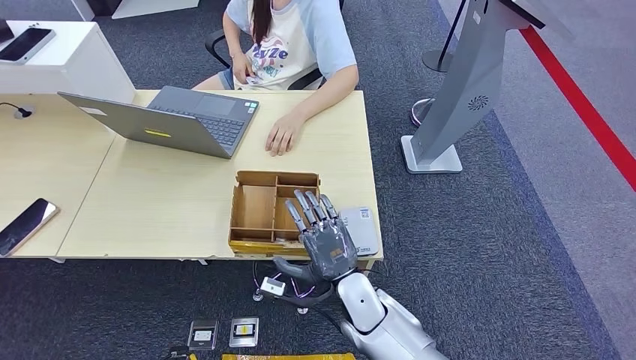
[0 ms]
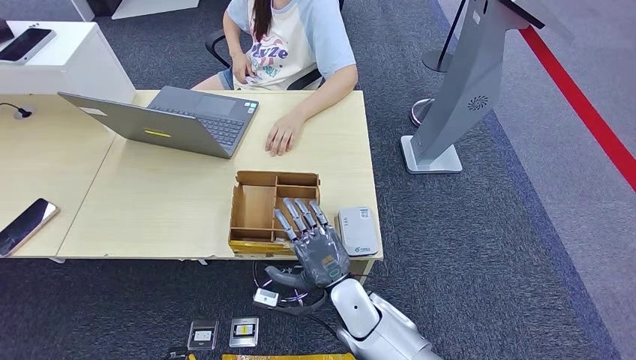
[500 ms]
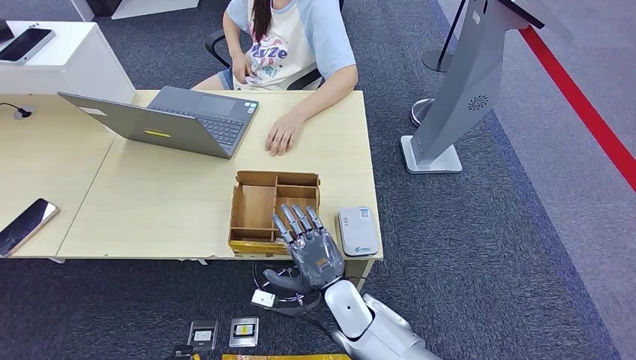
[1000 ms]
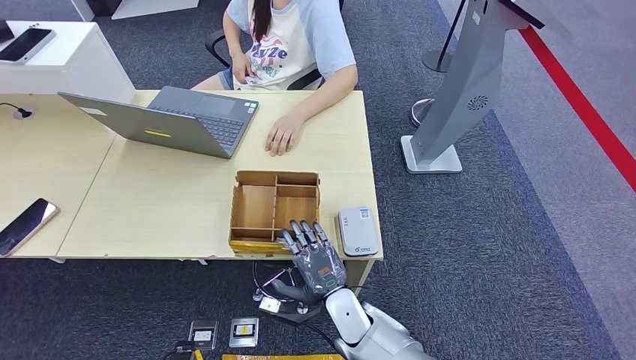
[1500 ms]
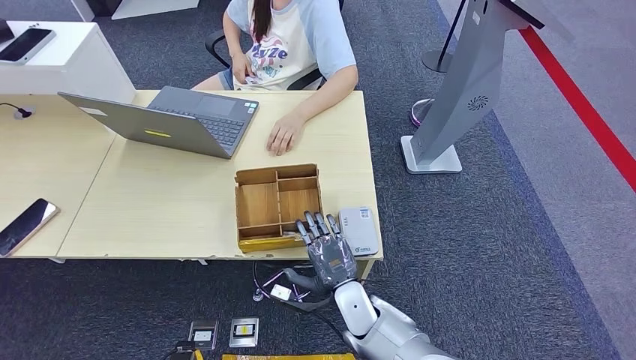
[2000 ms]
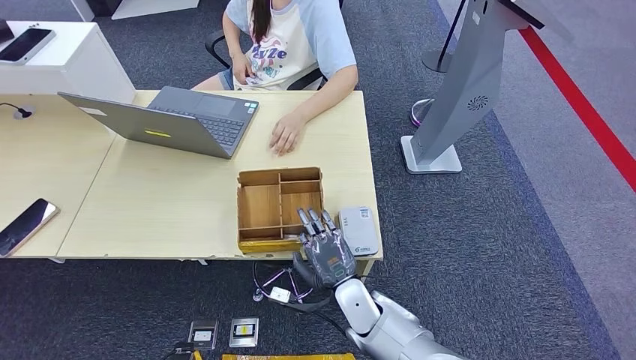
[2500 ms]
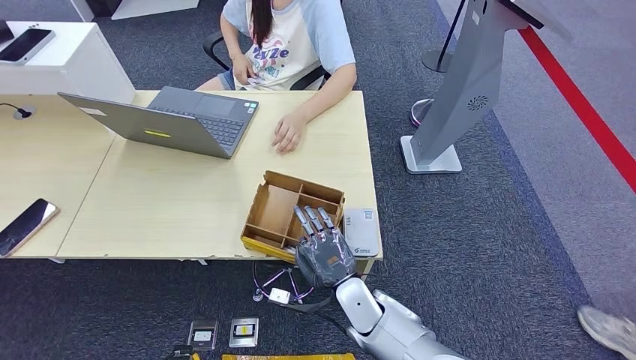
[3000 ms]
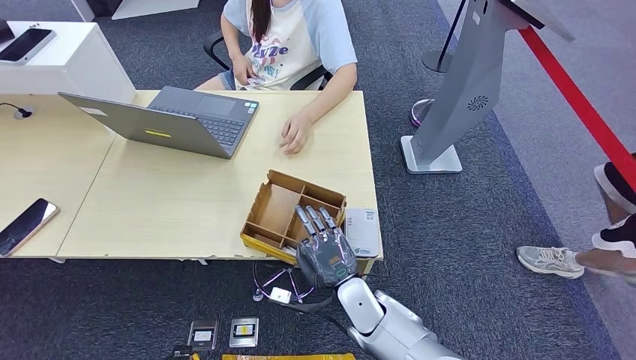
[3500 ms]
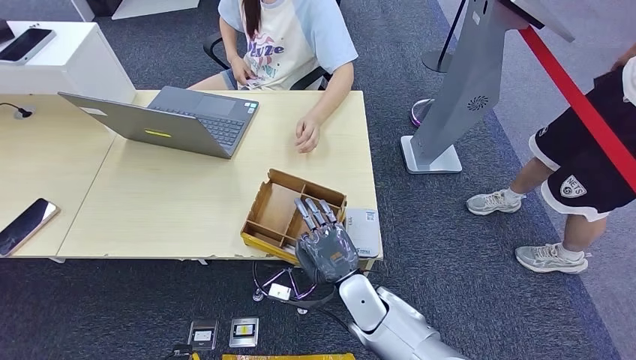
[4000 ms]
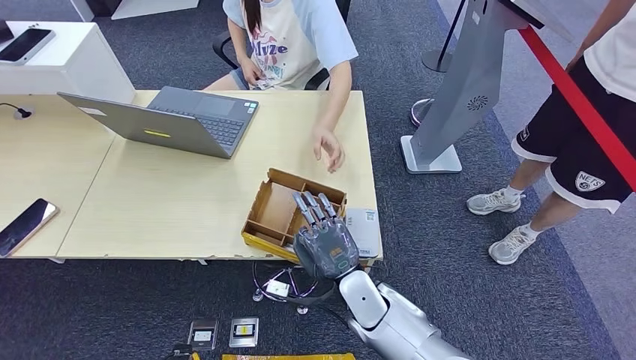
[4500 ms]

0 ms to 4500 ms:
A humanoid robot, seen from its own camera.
Step, 0 ms to 3500 ms: Pick up the room key from the key card box.
Step, 4000 ms to 4500 ms: Hand the room key to the person.
0 ms to 2000 ms: The right hand is displaced downward by about 5 cm.
2000 ms to 4500 ms: The hands stay close to where they were, moving slightly.

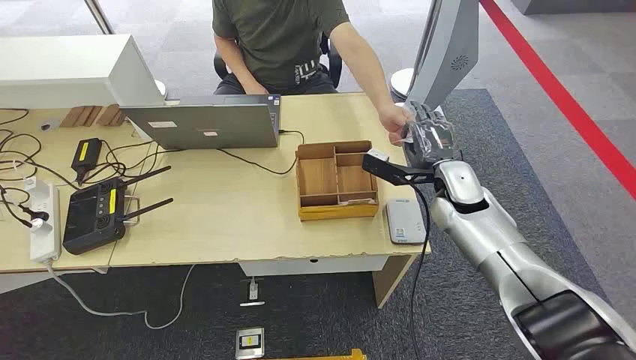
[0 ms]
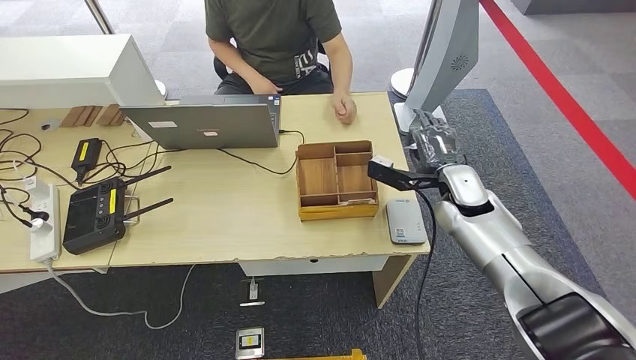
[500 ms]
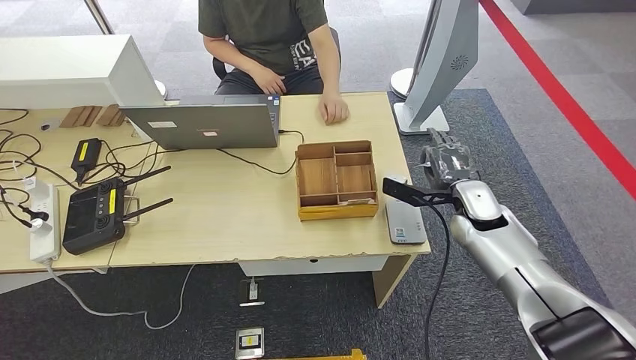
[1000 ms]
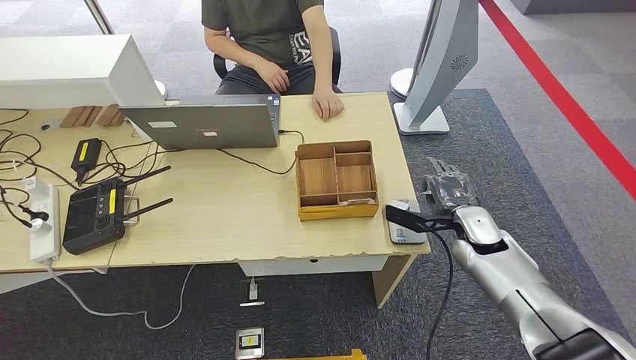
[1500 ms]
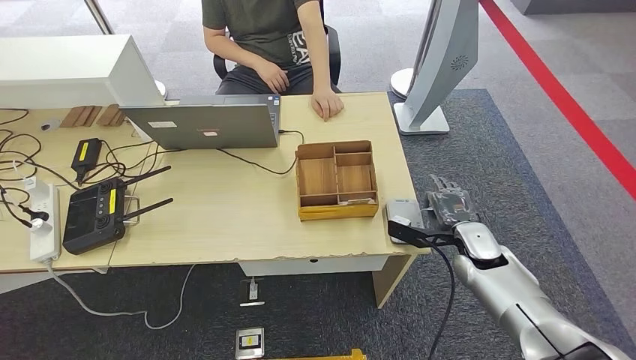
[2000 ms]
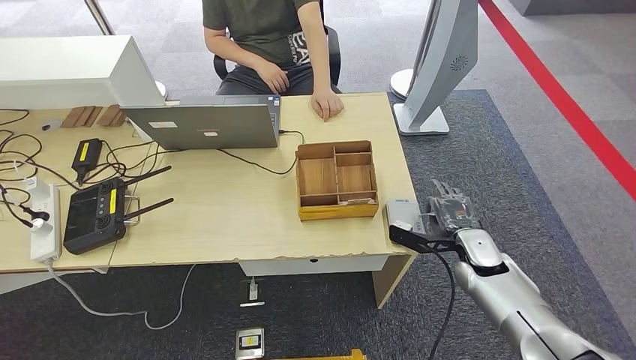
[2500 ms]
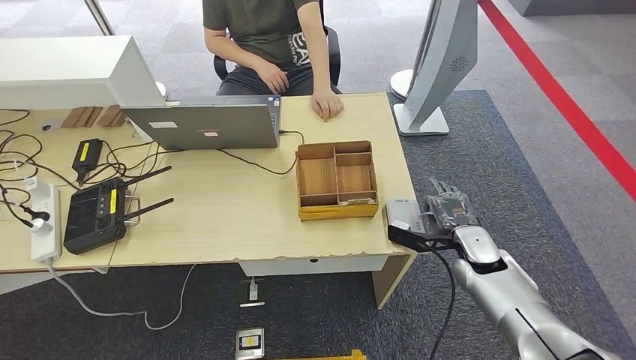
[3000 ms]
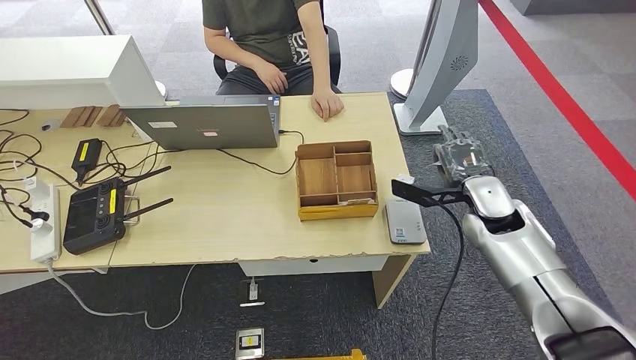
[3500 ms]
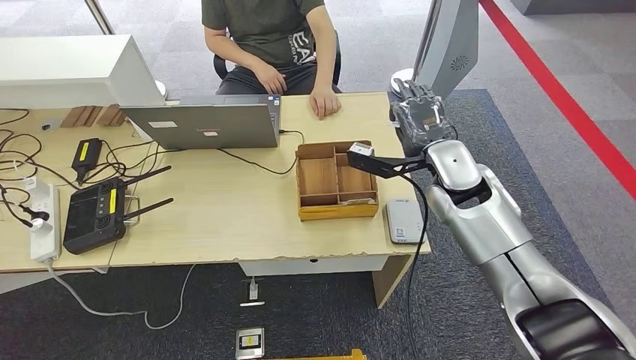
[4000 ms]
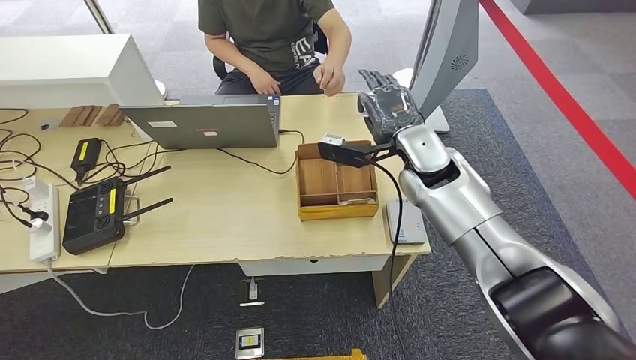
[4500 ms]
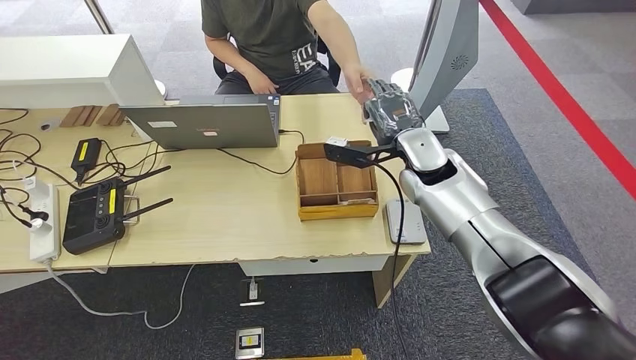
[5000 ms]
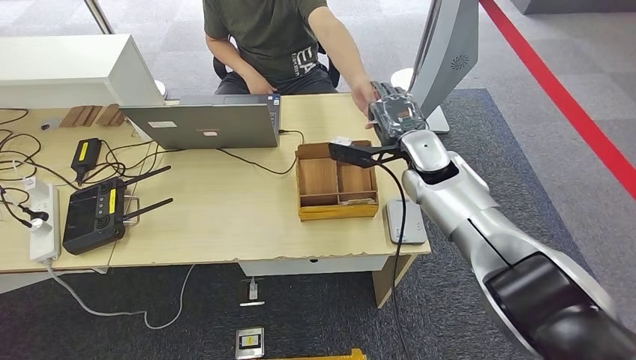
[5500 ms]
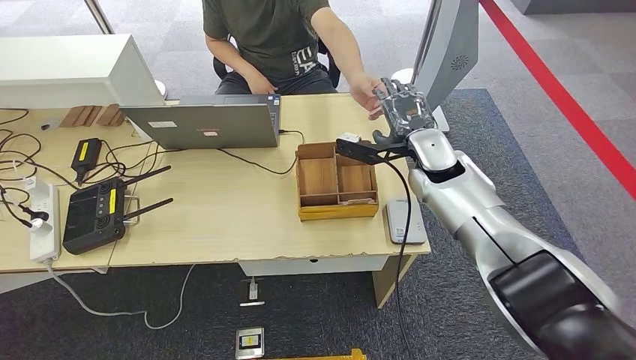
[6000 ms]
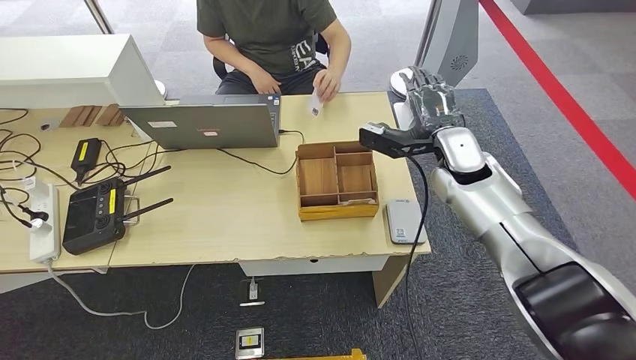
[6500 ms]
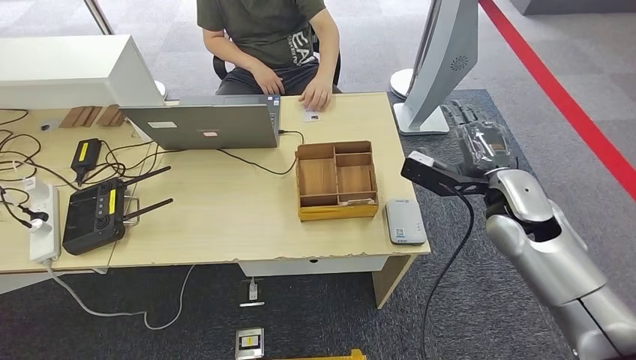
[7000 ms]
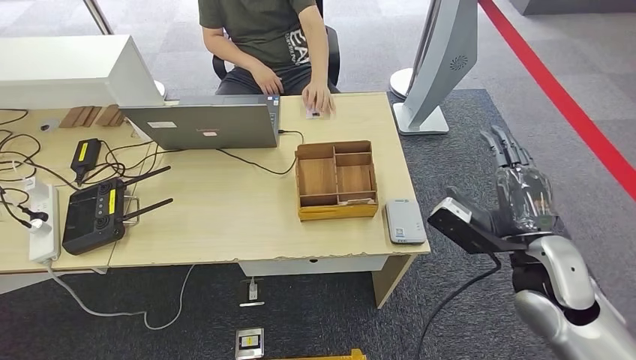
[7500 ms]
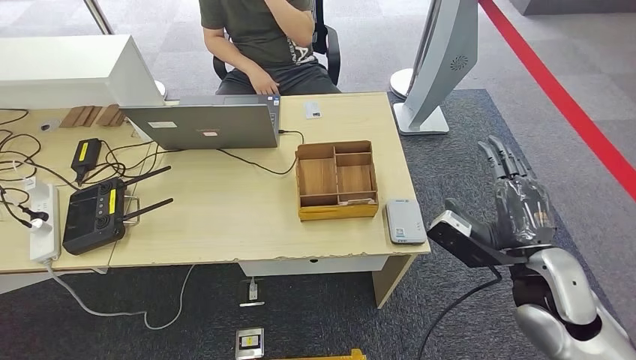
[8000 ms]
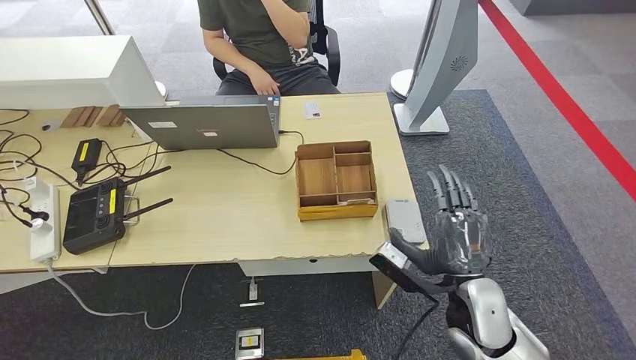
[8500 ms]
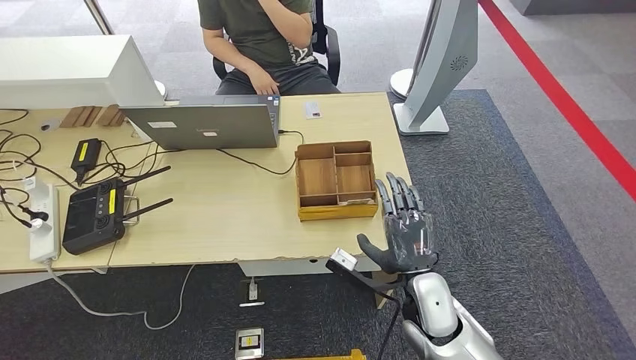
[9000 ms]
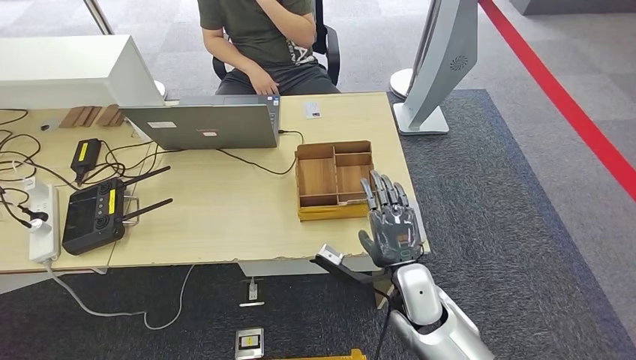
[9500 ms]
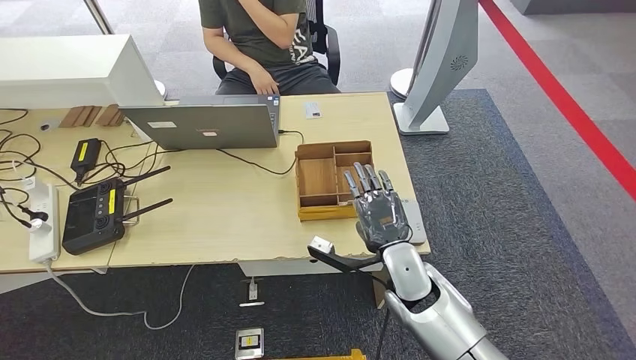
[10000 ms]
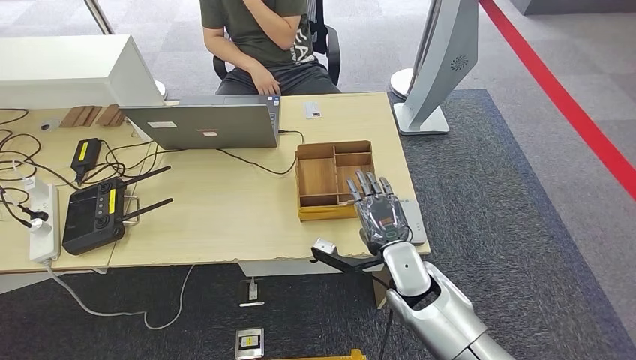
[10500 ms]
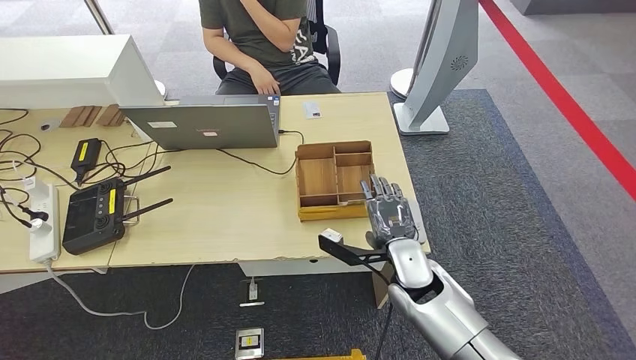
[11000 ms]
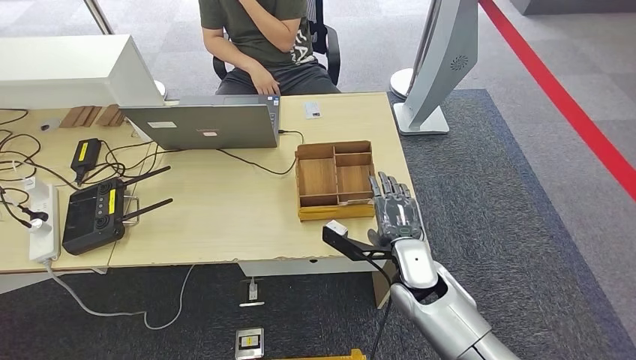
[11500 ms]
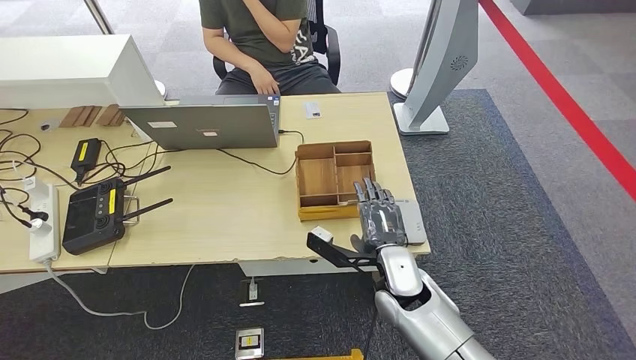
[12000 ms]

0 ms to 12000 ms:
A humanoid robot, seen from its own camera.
Step, 0 ms to 1000 ms: Take the ID card from the person's hand.
Step, 1500 ms to 4500 ms: Place the ID card on the card reader.
Step, 5000 ms to 10500 ms: Hand the ID card to the person.
2000 ms to 4000 ms: The right hand is displaced upward and to the left by about 20 cm.
4000 ms to 6000 ms: The right hand ends up roughly 5 cm from where it was.
6000 ms to 8000 ms: The right hand moves backward, about 25 cm.
8000 ms to 10000 ms: The right hand heads to the left, downward and forward, covering roughly 20 cm.

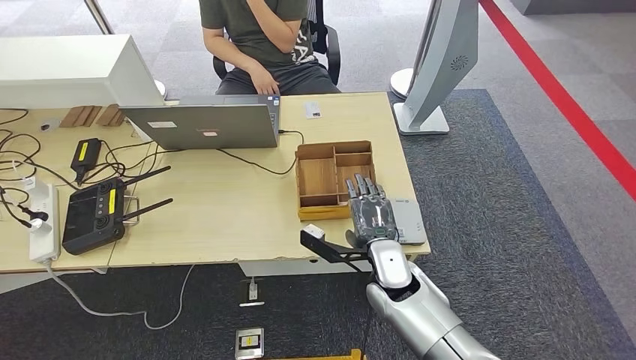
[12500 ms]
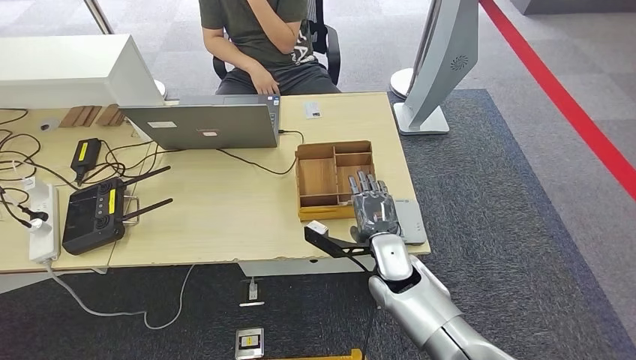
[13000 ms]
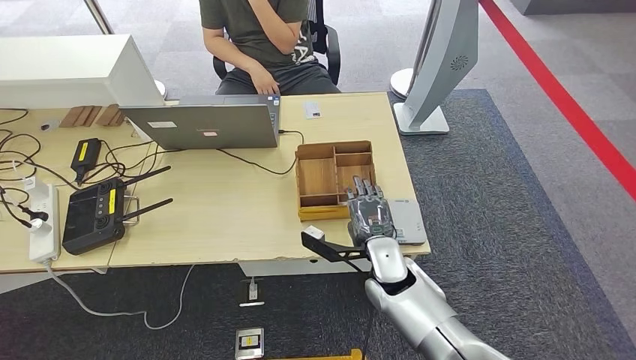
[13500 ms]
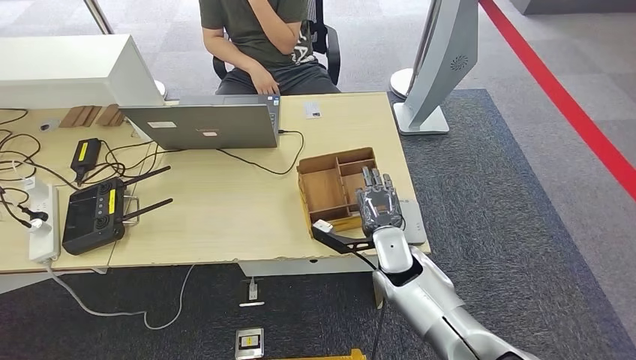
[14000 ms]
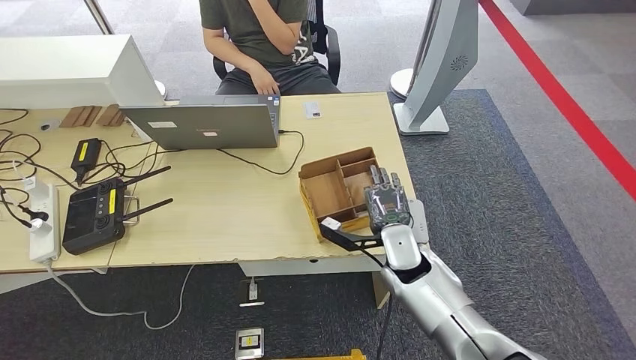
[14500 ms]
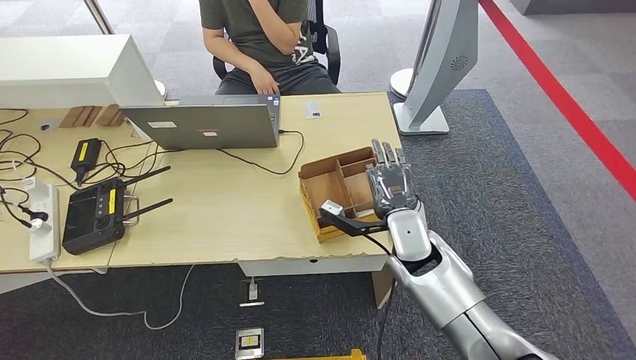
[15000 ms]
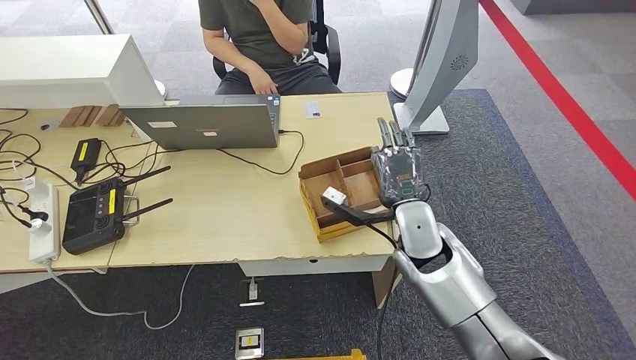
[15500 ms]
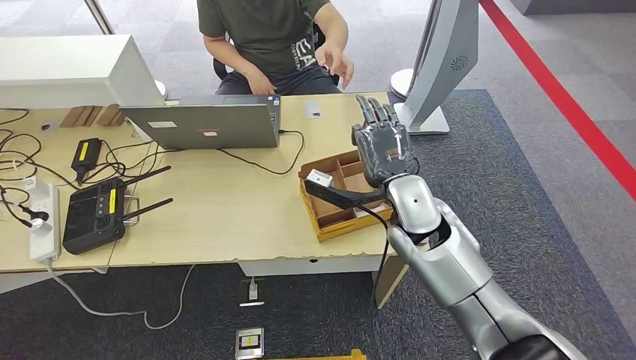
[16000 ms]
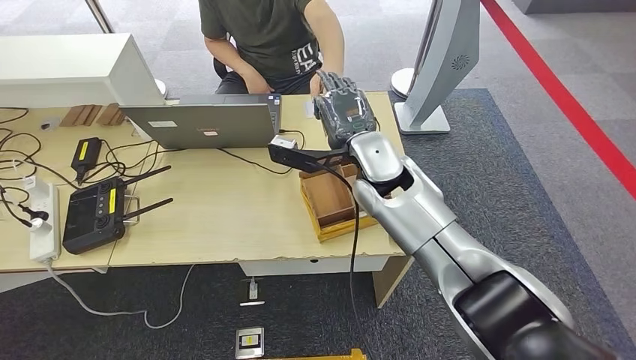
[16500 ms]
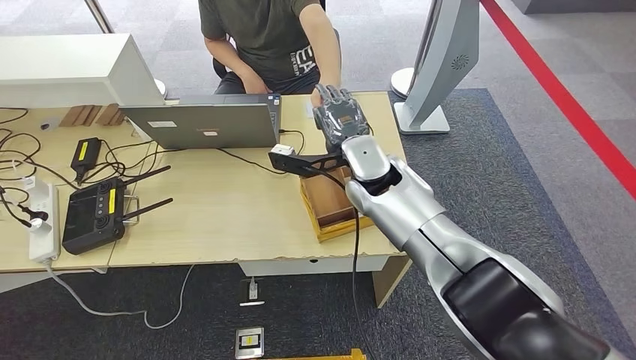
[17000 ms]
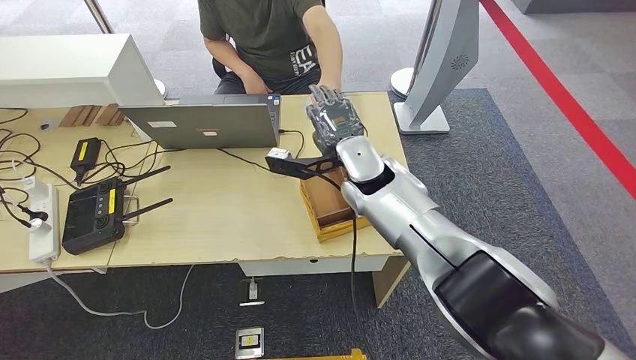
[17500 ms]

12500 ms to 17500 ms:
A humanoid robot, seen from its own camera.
Step, 12500 ms to 16500 ms: Pick up the room key from the key card box.
12500 ms to 15000 ms: The right hand ends up some 5 cm from where it was.
15000 ms to 17500 ms: The right hand goes some 15 cm upward, forward and to the left.
